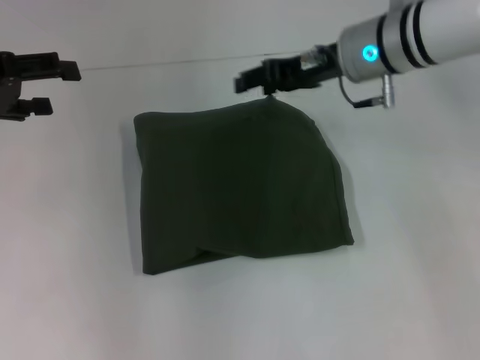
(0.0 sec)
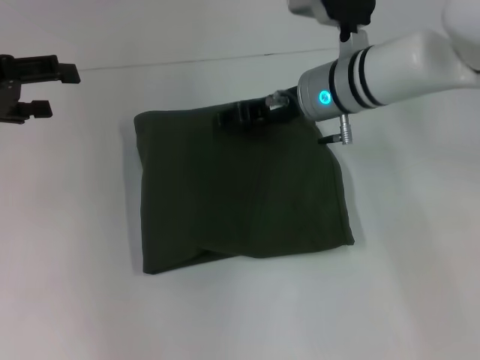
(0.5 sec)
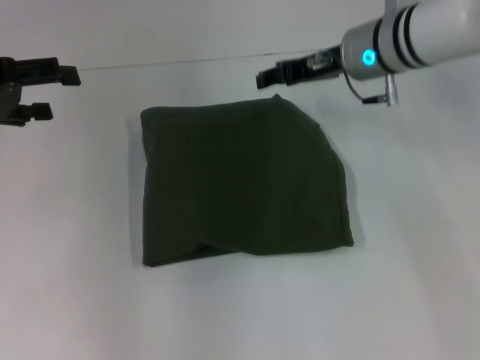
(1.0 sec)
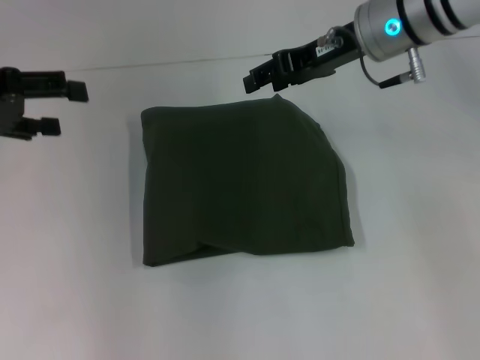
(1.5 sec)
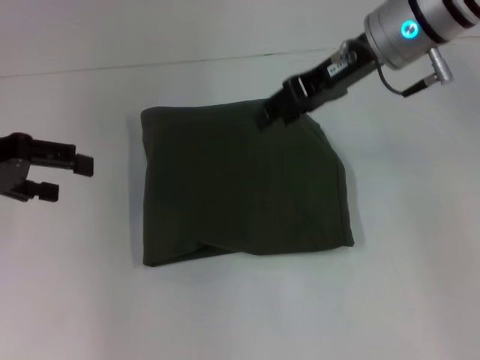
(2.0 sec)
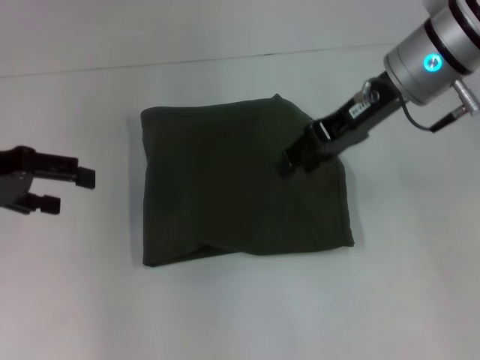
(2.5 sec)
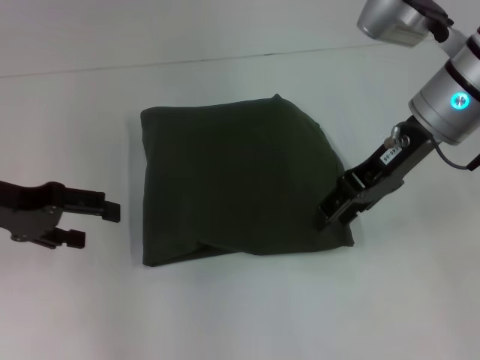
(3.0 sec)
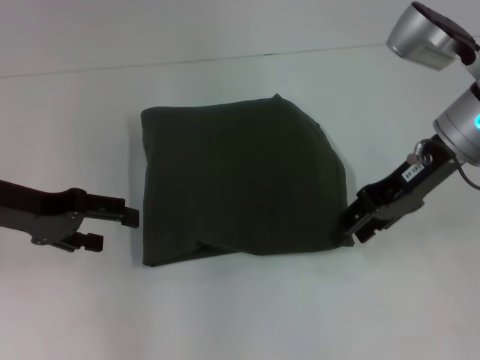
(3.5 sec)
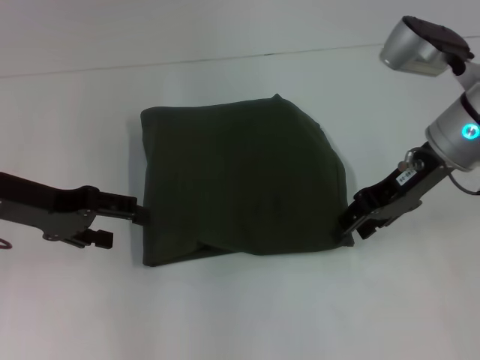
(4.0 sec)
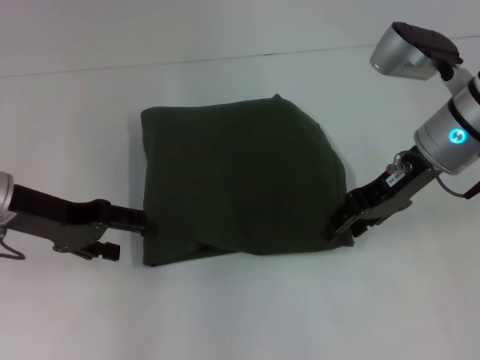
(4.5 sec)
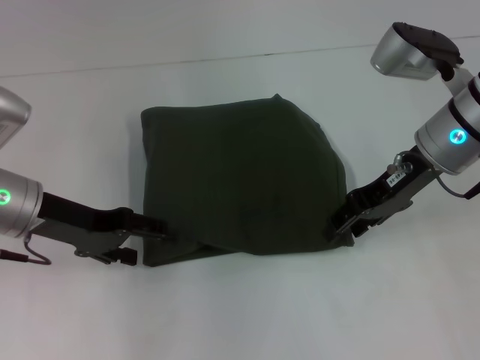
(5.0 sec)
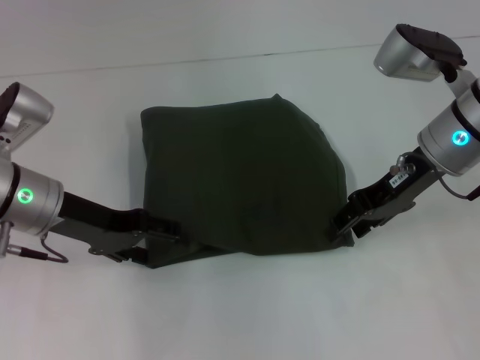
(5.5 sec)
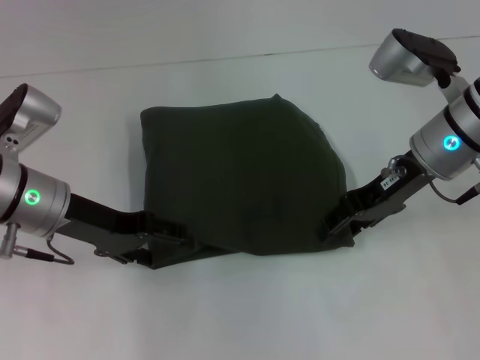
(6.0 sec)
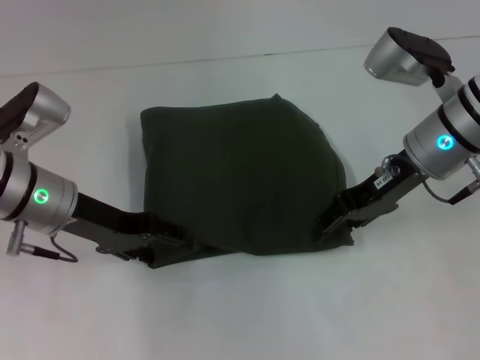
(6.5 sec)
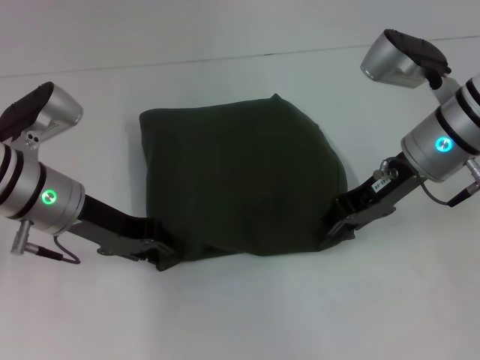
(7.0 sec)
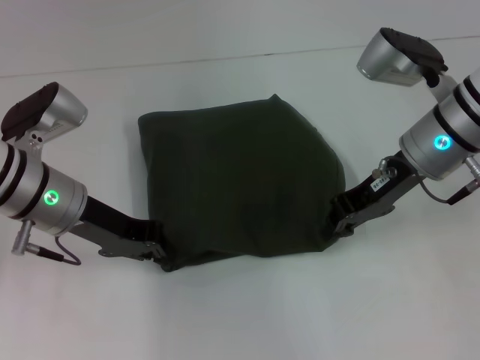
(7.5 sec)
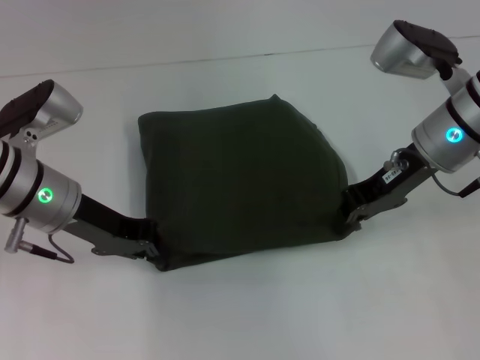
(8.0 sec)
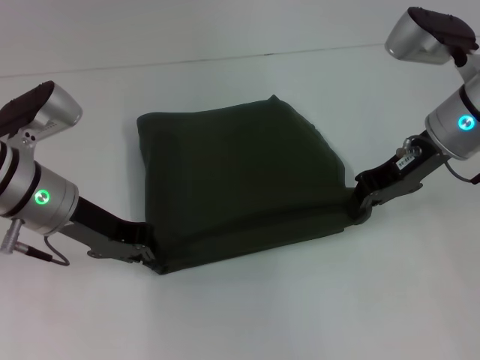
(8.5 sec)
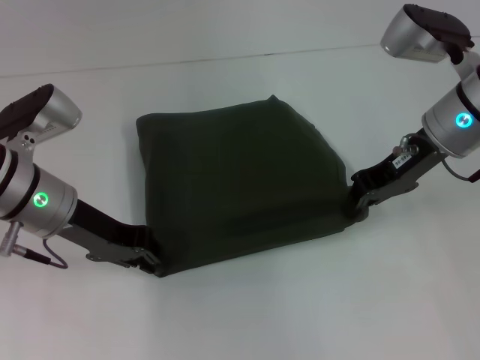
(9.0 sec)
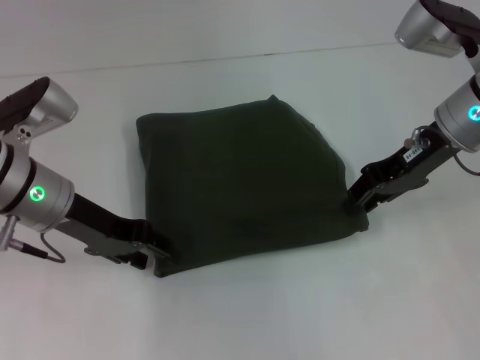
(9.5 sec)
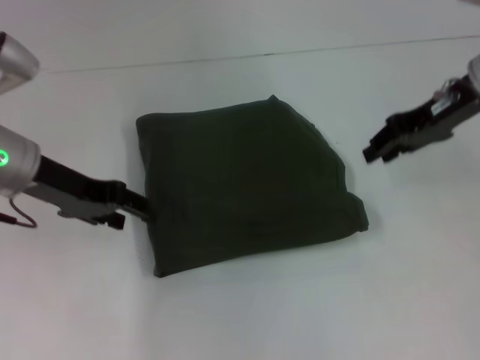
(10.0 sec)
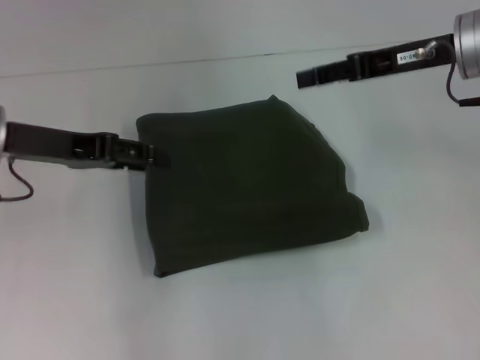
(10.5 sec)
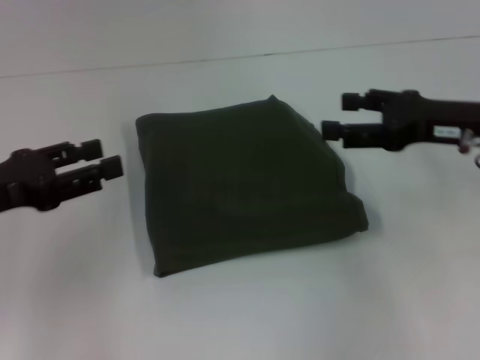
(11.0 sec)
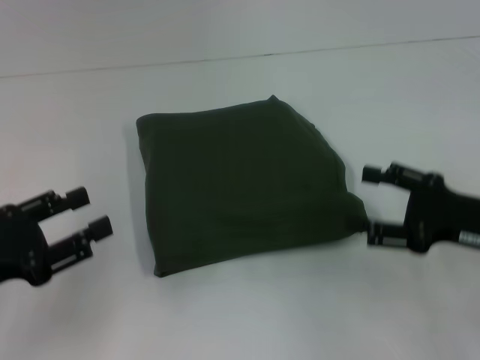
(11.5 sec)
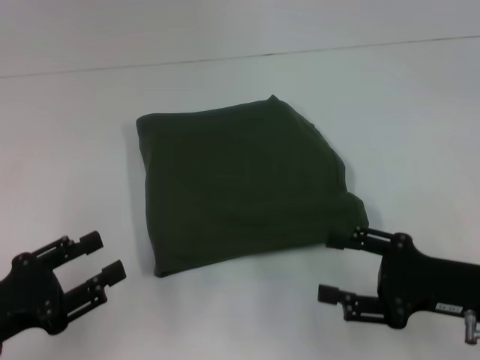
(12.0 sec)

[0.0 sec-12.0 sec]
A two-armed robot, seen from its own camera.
0.0 sec to 2.0 sec: The grippers move only a little.
2.0 sec to 4.0 sec: The left gripper heads downward, covering roughly 5 cm. The right gripper heads downward and backward, covering about 10 cm.
4.0 sec to 6.0 sec: The left gripper heads to the right, covering approximately 5 cm.
6.0 sec to 8.0 sec: The left gripper closes its fingers, while the right gripper closes.
8.0 sec to 10.0 sec: The left gripper ends up about 5 cm from where it was, and opens; the right gripper heads upward, covering about 5 cm, and opens its fingers.
10.0 sec to 12.0 sec: The right gripper is displaced backward and downward by about 25 cm, and opens its fingers, while the left gripper shifts roughly 20 cm backward, downward and to the left.

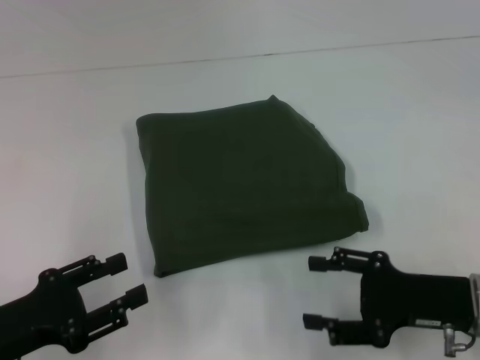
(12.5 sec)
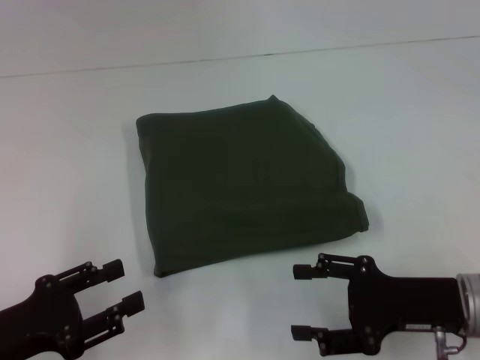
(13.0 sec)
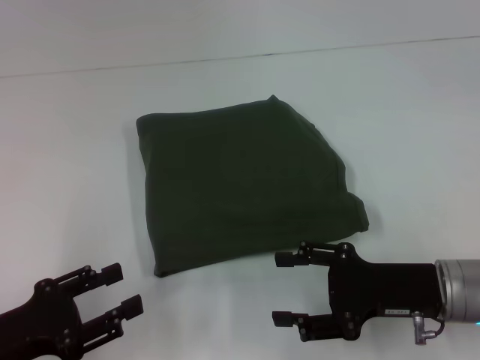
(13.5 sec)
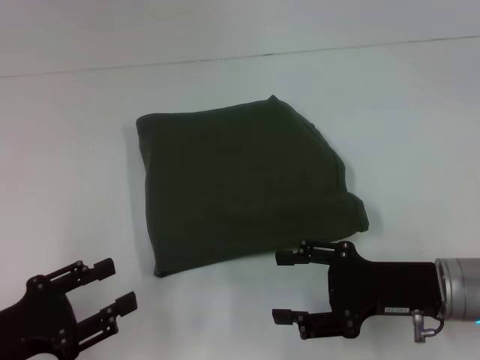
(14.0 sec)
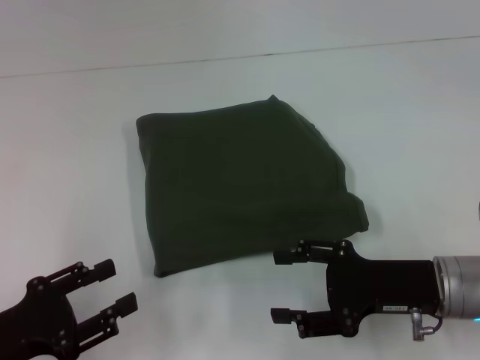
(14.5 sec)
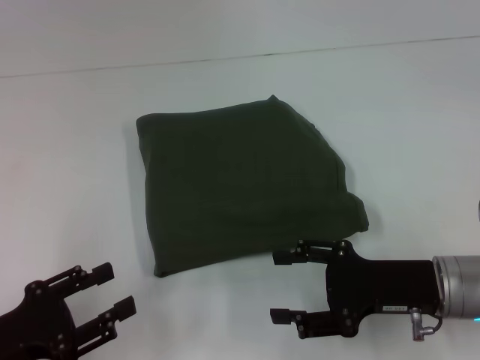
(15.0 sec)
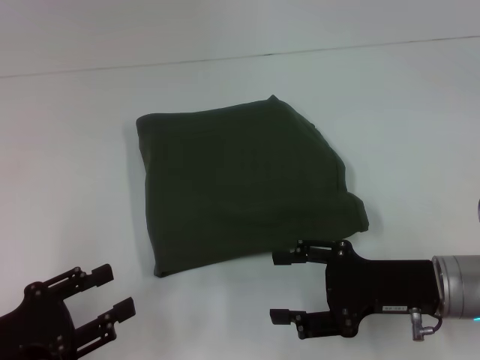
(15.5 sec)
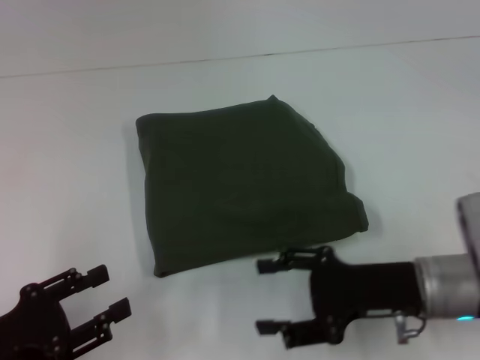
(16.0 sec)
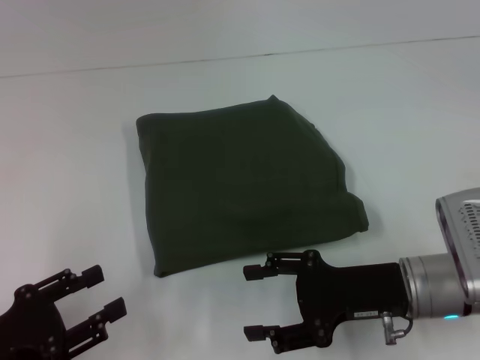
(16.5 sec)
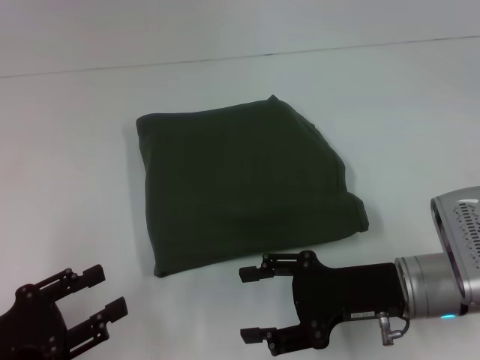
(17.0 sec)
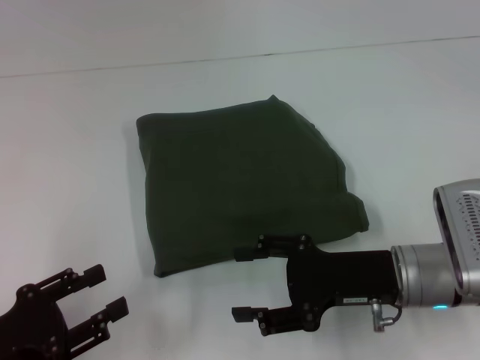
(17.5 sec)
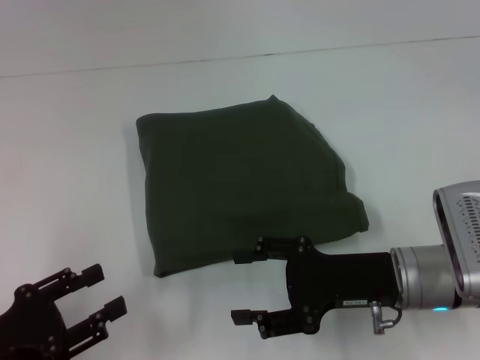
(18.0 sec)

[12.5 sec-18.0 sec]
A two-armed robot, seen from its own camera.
12.5 sec to 16.0 sec: The grippers make only small movements.
16.0 sec to 18.0 sec: The grippers make only small movements.
